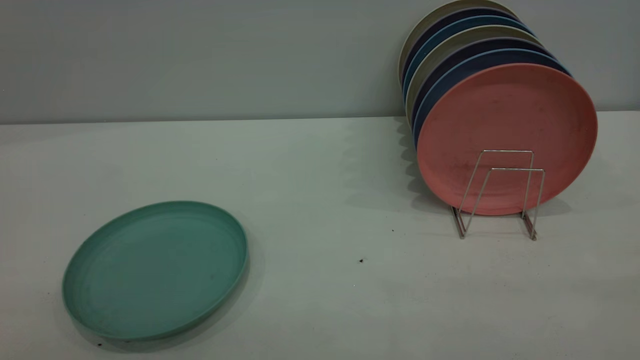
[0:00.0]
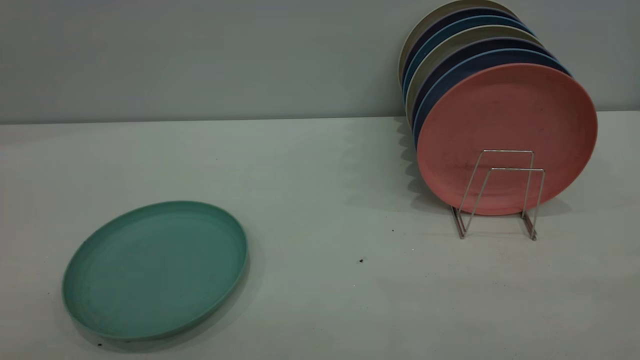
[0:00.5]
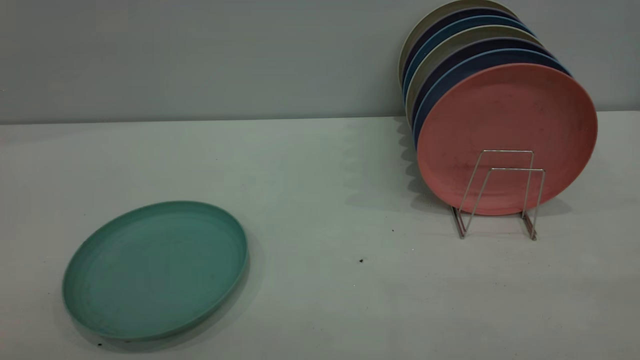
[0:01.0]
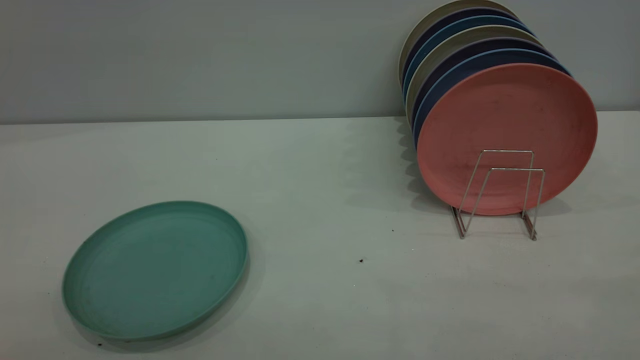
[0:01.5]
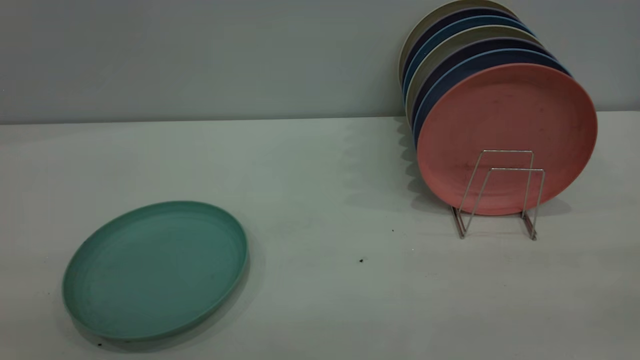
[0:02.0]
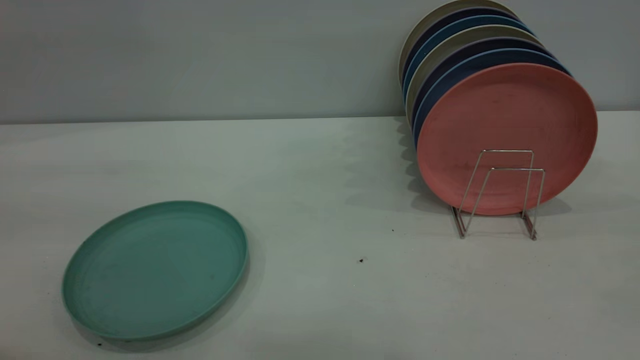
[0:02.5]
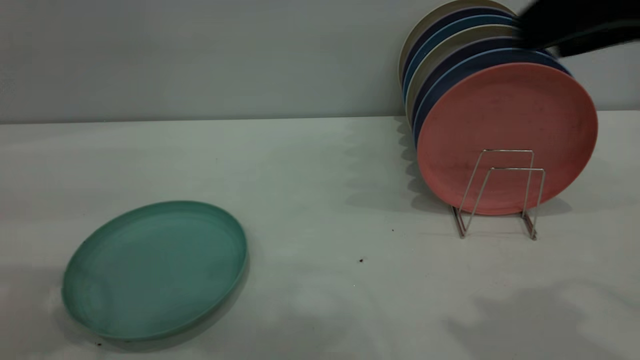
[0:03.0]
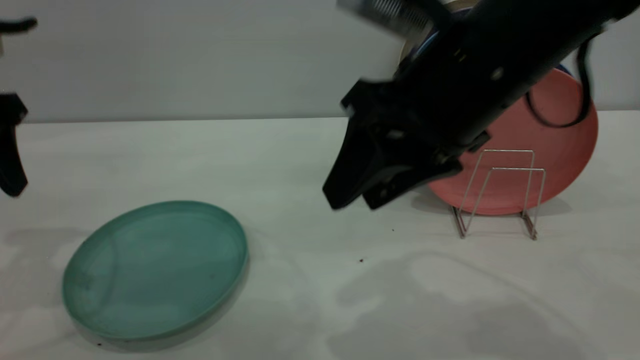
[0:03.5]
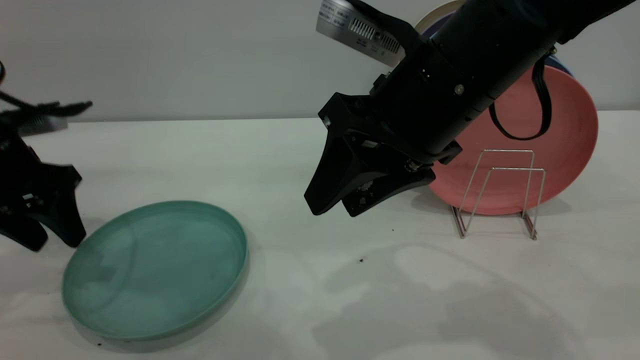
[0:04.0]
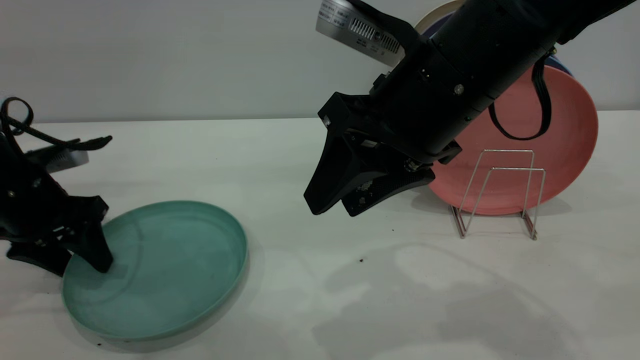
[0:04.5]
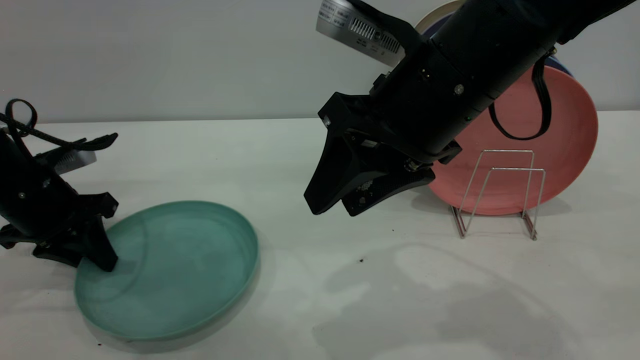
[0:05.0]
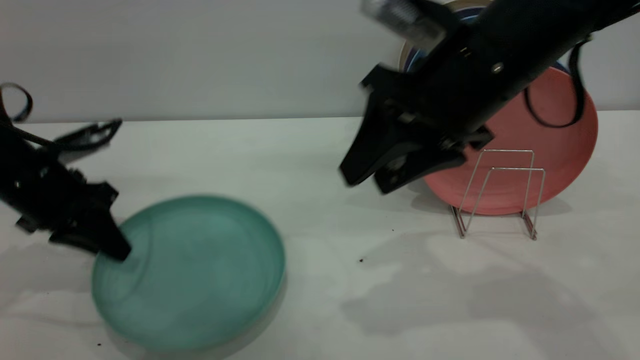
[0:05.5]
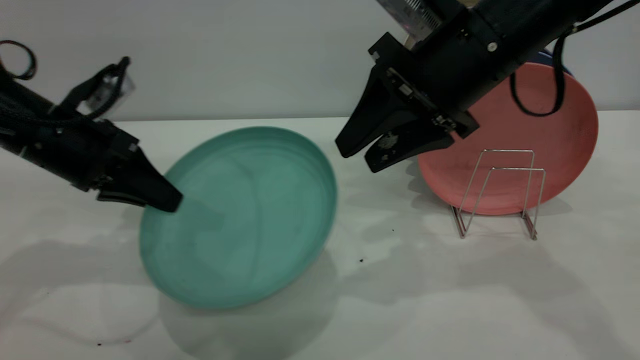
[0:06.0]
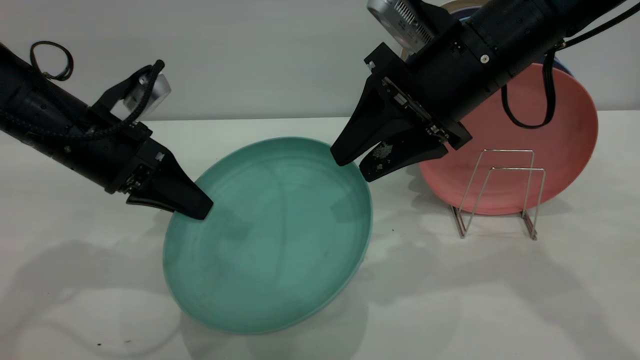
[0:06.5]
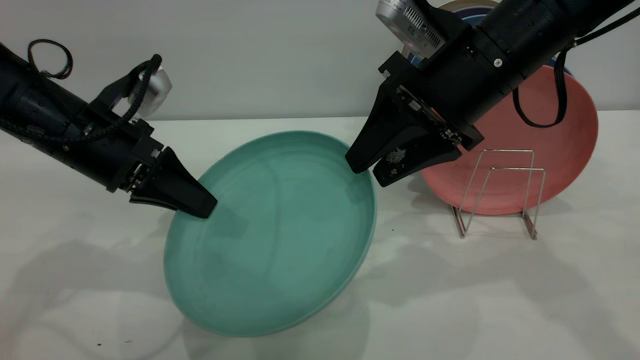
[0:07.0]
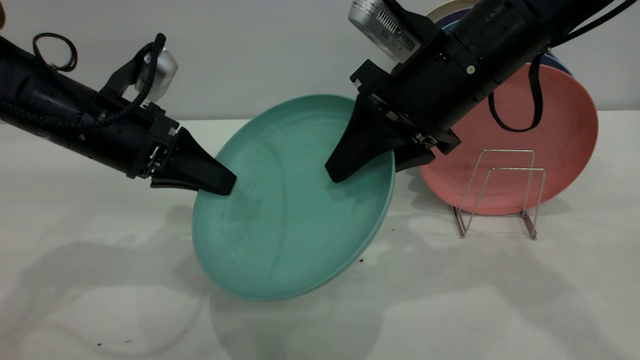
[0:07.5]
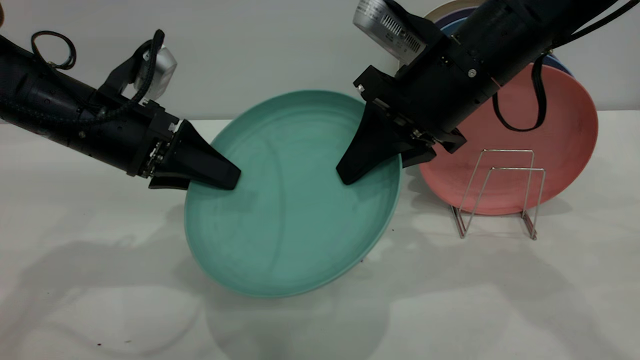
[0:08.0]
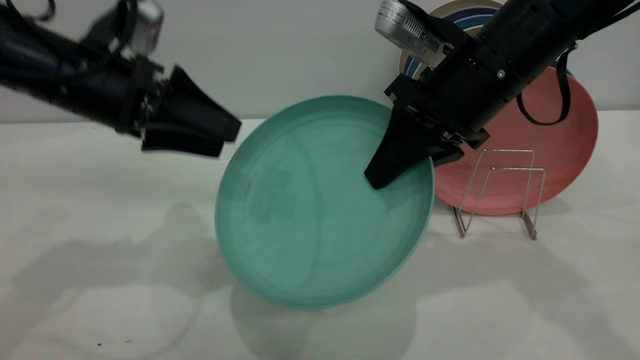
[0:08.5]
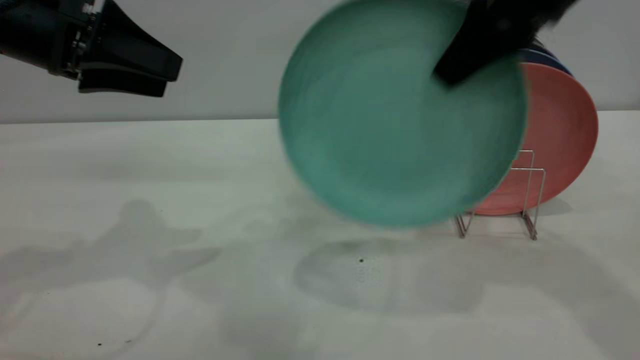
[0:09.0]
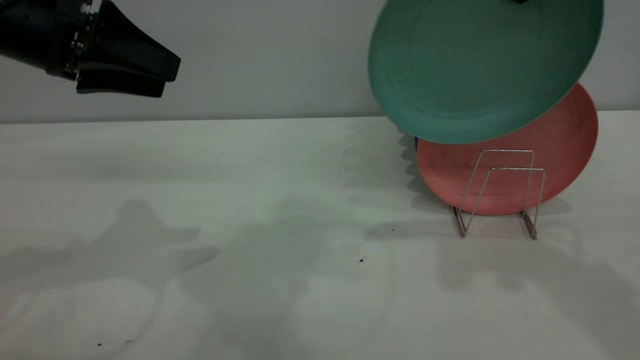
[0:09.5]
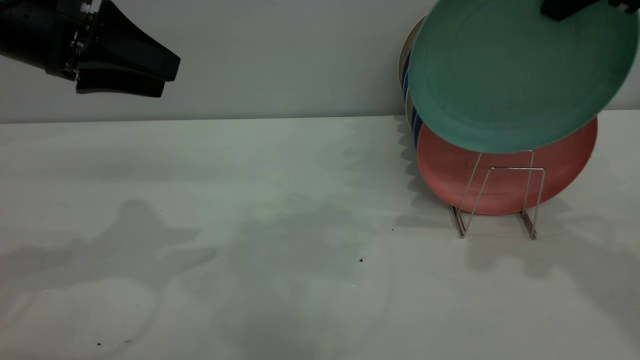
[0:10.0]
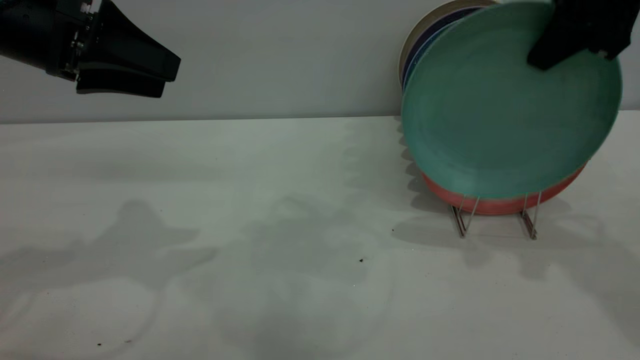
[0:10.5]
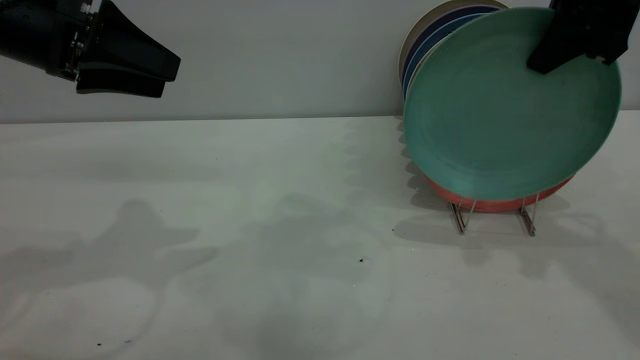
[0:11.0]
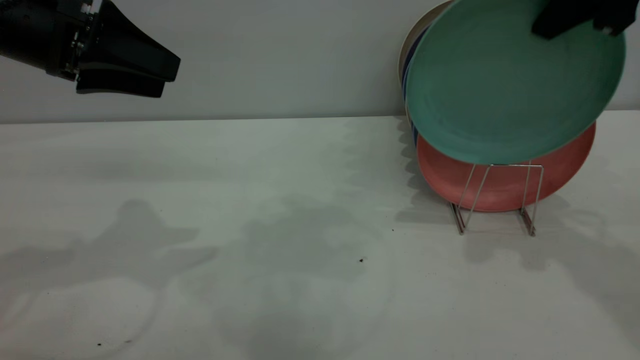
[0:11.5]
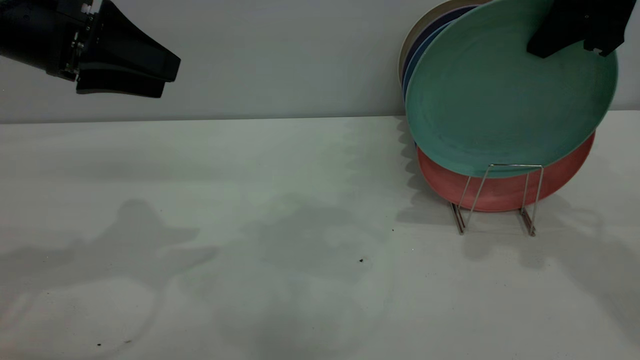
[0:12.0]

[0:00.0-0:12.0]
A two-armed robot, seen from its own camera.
Task of the whole recording: the left gripper grasp the green plate, the left gripper pass the green plate to the right gripper, and the right gripper place the green plate on the plate rack.
Step, 0:00.0 to 0:05.5: Pick up the plate with the left gripper.
Step, 0:06.0 to 0:08.5: Pass the plate from the left gripper to the right gripper.
0:02.0 to 0:04.0: The left gripper travels forward and downward by approximately 40 cm, while the right gripper moves forward, to the left and downward, some 35 cm.
0:04.0 to 0:06.0: The left gripper heads to the right, covering about 5 cm, and closes up. Meanwhile the right gripper heads forward, covering approximately 5 cm.
0:06.0 to 0:08.0: The left gripper opens its fingers. Meanwhile the right gripper closes its fingers.
0:08.0 to 0:10.0: The right gripper travels to the right and upward by roughly 20 cm. The left gripper goes roughly 10 cm upward.
0:10.0 to 0:12.0: The grippers stay close to where they were, moving slightly.

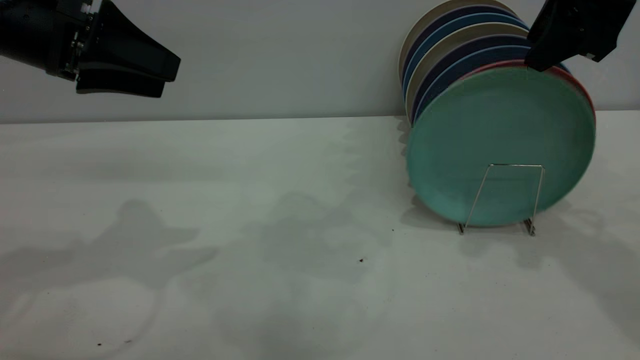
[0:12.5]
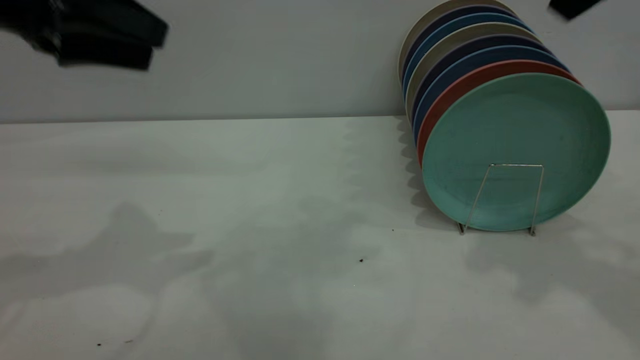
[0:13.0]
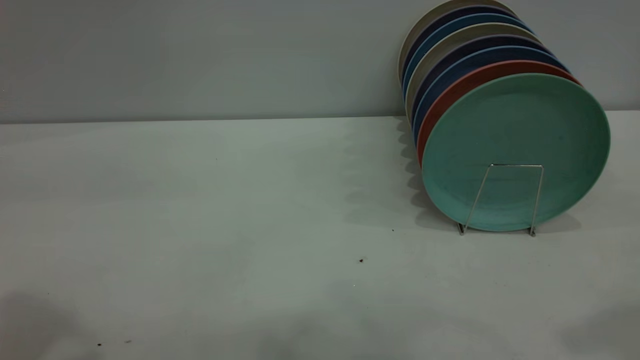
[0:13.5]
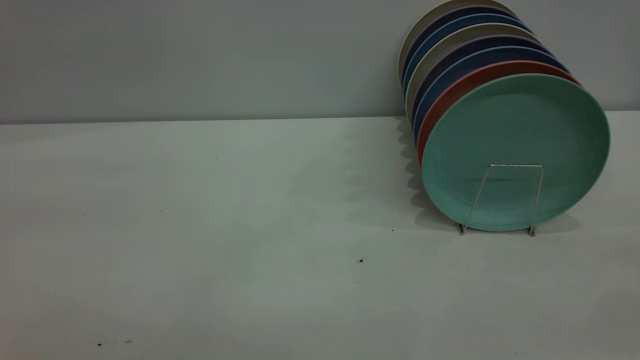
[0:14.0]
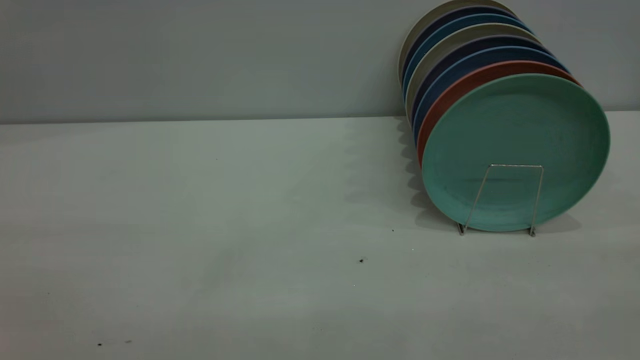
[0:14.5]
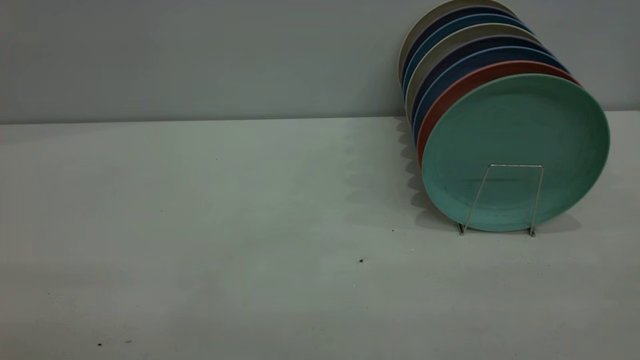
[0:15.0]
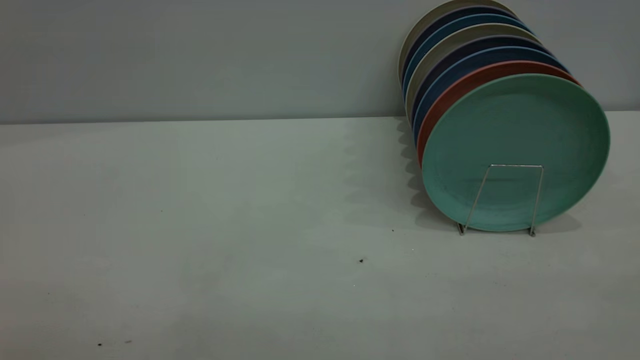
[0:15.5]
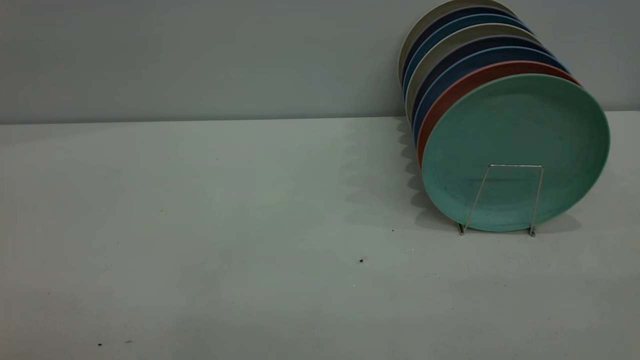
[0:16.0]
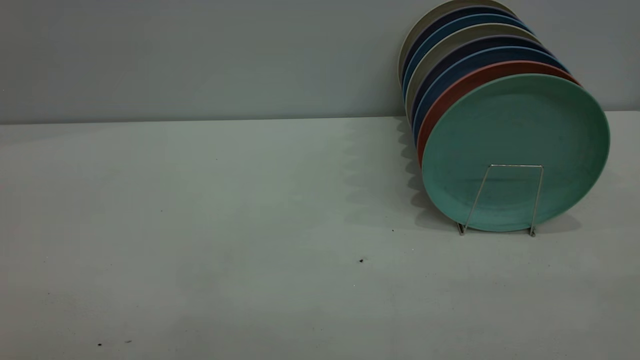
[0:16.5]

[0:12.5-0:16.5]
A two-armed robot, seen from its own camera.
Task of the whole recording: the left gripper grasp the green plate, the left gripper pass the green plate to the right gripper, and the right gripper place the green plate on the plate rack.
0:12.5 to 0:14.5: The two grippers go some 35 cm backward.

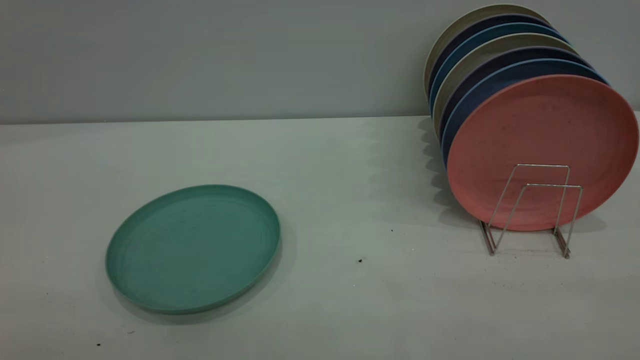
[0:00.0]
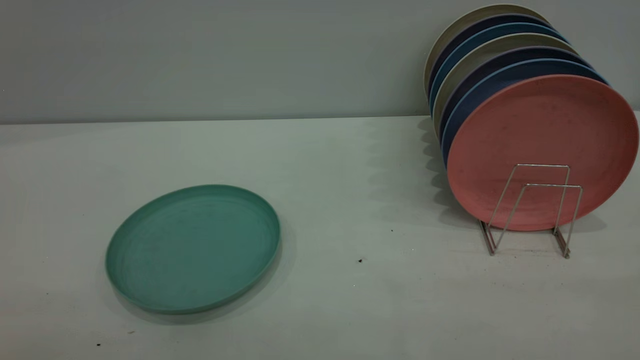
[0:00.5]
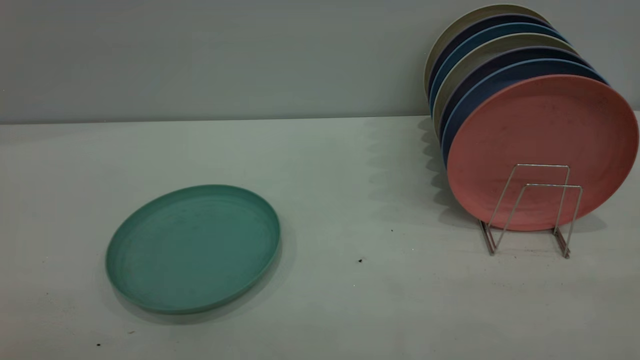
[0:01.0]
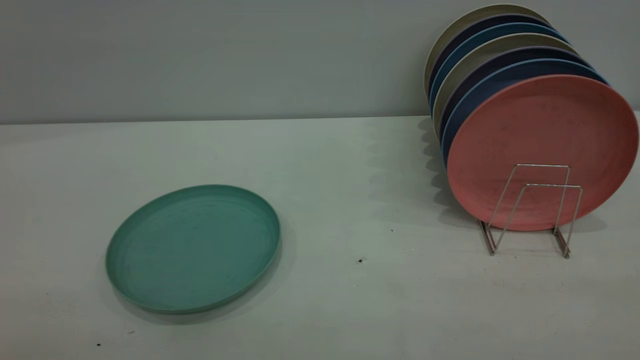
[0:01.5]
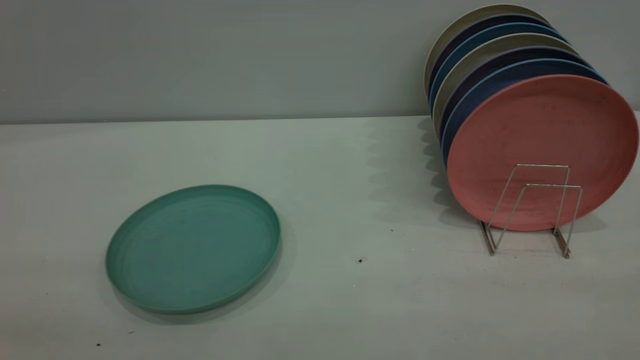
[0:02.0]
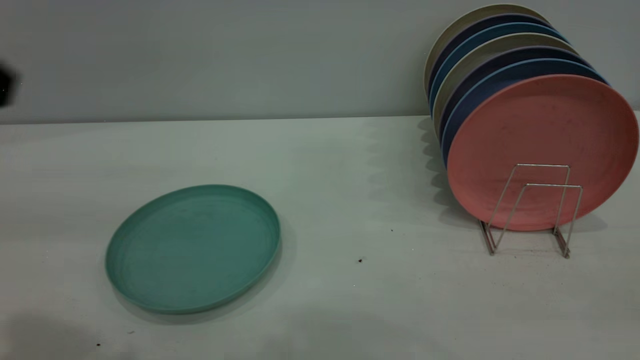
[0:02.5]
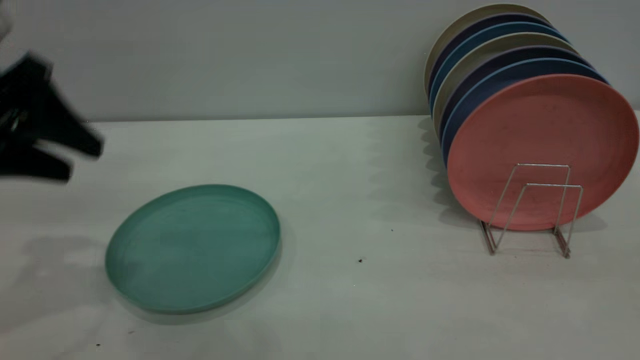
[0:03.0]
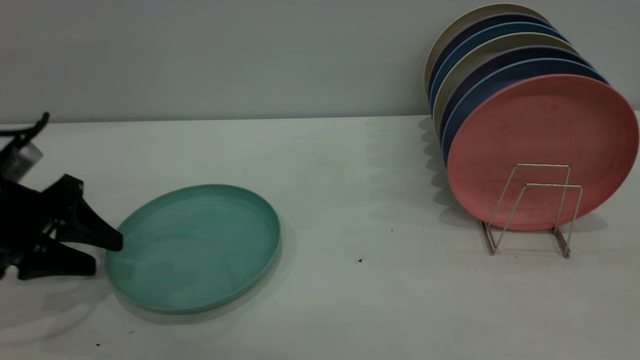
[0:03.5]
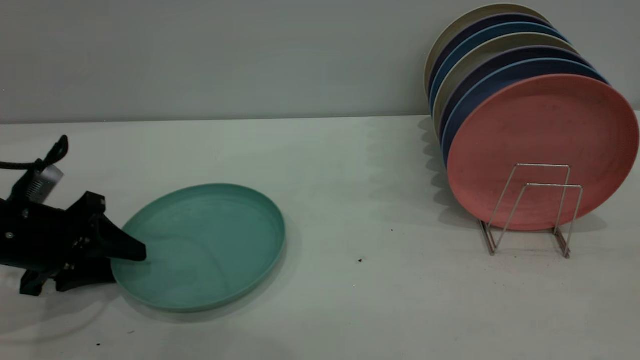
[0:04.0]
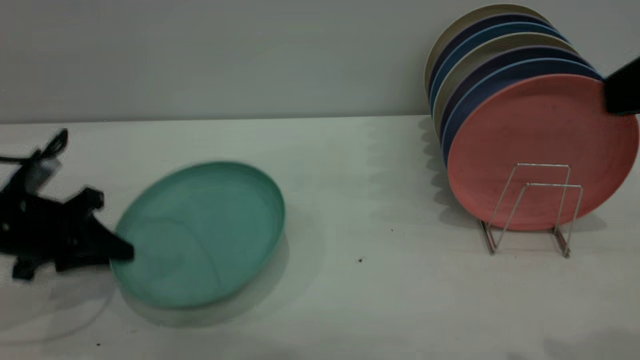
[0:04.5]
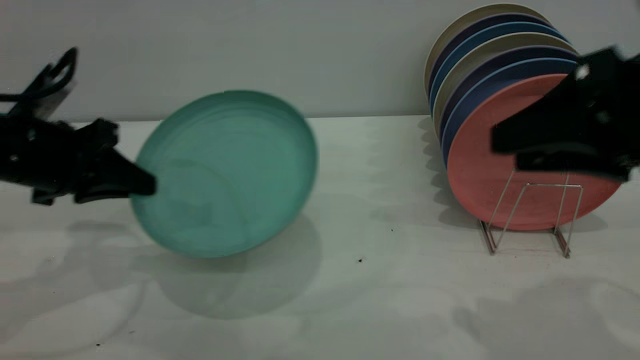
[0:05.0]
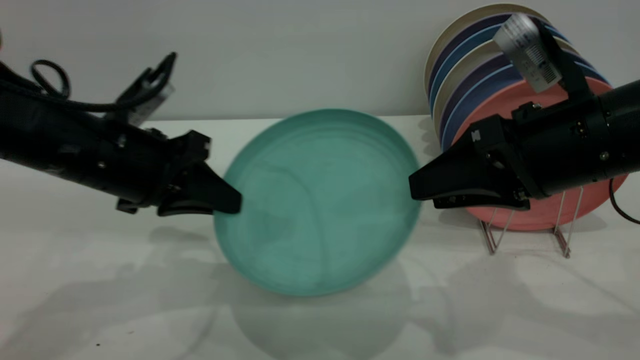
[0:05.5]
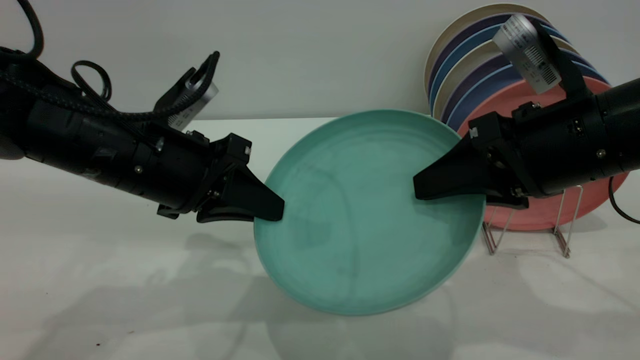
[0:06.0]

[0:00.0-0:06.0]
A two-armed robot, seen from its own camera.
Task of the whole recording: the left gripper grasp the green plate, the left gripper pass the green plate to the right gripper, and the right gripper place the green plate on the plate rack.
Step, 0:00.0 to 0:04.0: Pick up the plate with the left gripper.
0:02.0 to 0:04.0: The left gripper goes approximately 40 cm downward and forward.
0:04.0 to 0:06.0: The right gripper shifts approximately 25 cm downward, forward and to the left, and closes up. Meanwhile the left gripper is displaced to the right and upward by roughly 20 cm, and closes.
